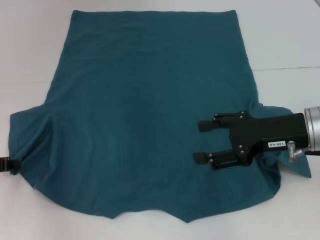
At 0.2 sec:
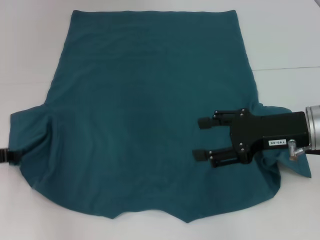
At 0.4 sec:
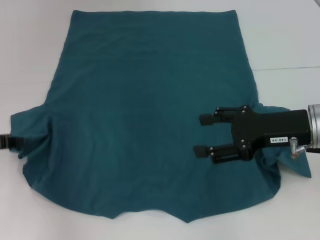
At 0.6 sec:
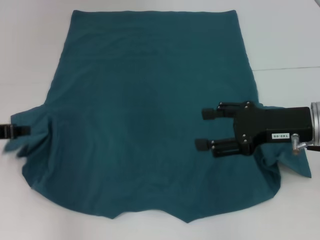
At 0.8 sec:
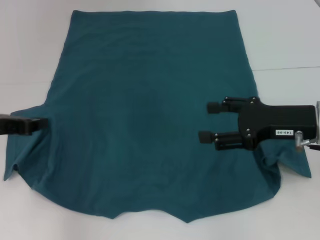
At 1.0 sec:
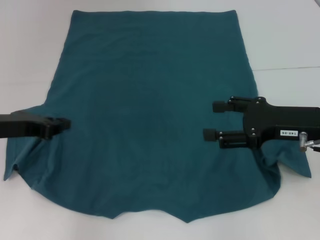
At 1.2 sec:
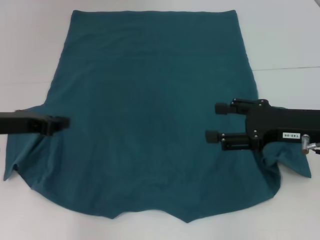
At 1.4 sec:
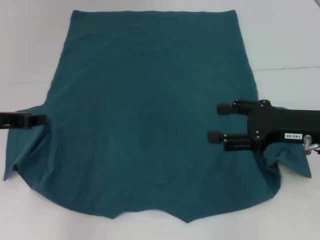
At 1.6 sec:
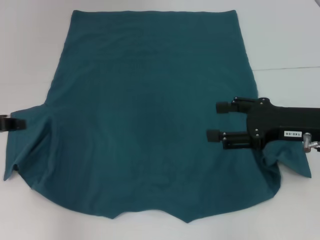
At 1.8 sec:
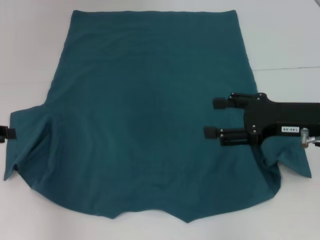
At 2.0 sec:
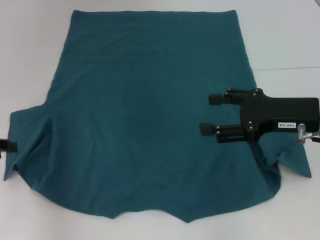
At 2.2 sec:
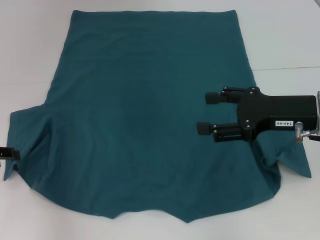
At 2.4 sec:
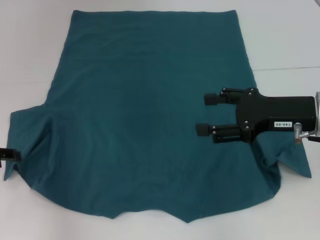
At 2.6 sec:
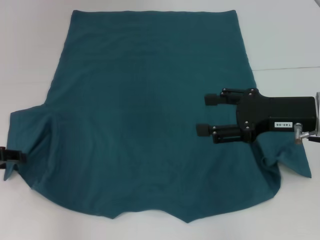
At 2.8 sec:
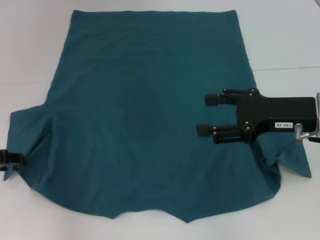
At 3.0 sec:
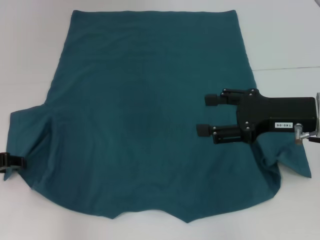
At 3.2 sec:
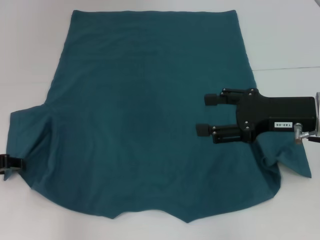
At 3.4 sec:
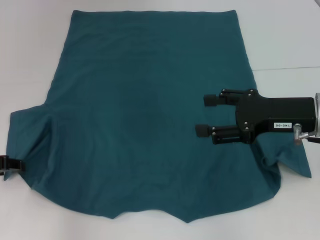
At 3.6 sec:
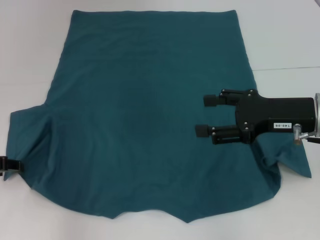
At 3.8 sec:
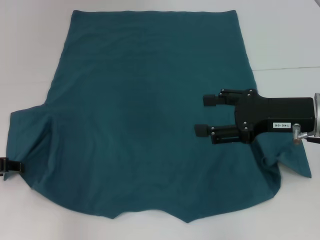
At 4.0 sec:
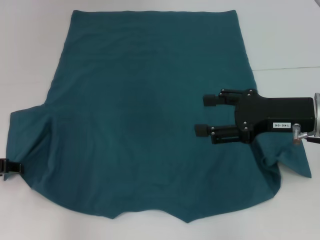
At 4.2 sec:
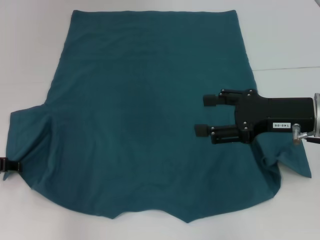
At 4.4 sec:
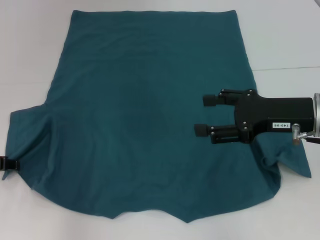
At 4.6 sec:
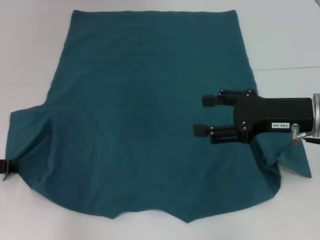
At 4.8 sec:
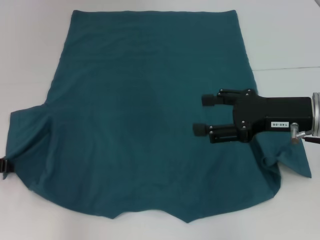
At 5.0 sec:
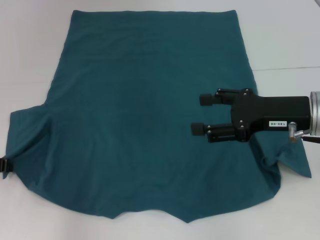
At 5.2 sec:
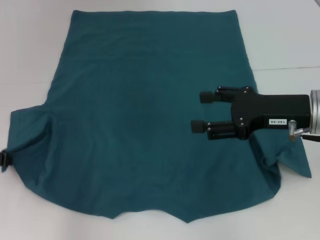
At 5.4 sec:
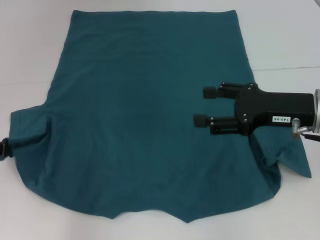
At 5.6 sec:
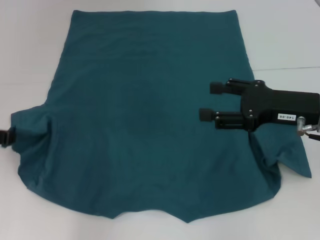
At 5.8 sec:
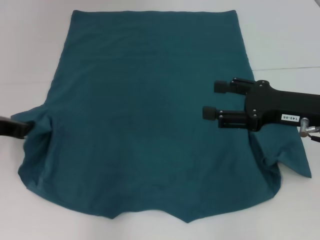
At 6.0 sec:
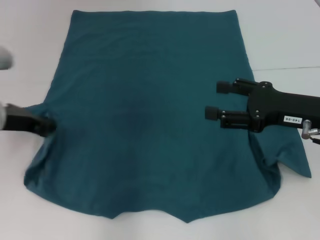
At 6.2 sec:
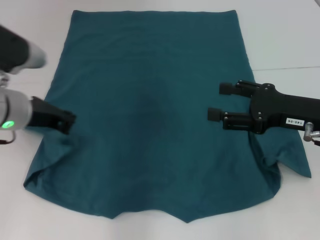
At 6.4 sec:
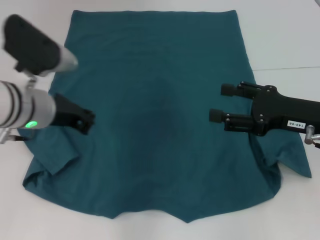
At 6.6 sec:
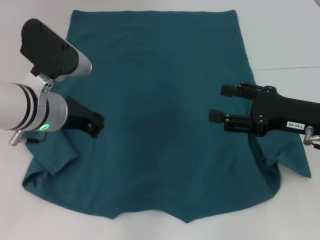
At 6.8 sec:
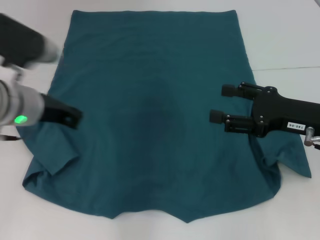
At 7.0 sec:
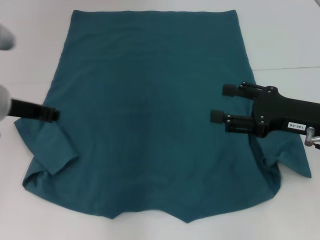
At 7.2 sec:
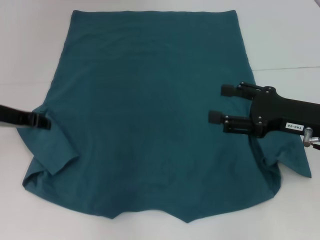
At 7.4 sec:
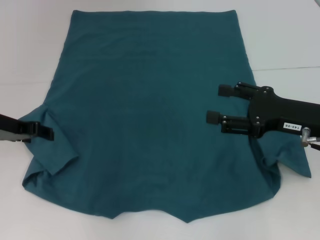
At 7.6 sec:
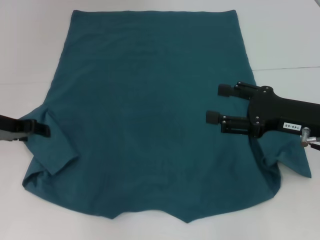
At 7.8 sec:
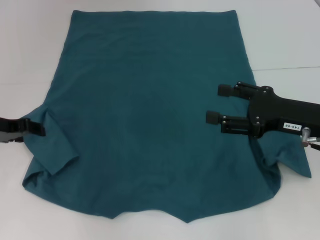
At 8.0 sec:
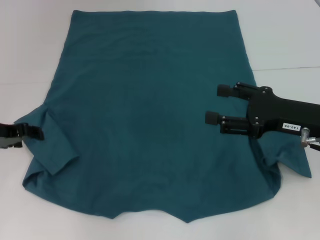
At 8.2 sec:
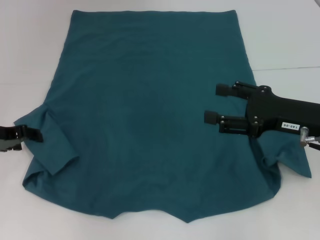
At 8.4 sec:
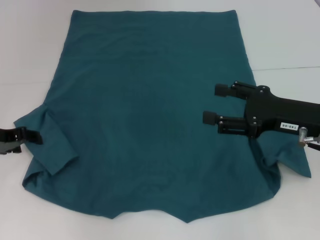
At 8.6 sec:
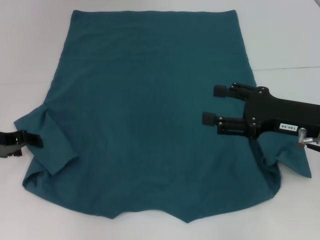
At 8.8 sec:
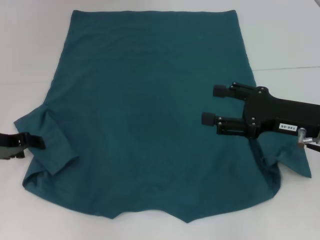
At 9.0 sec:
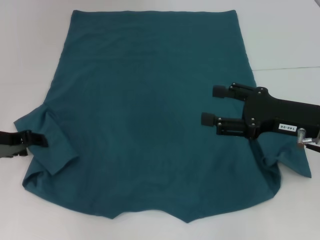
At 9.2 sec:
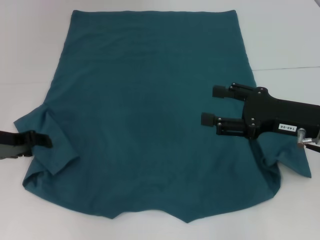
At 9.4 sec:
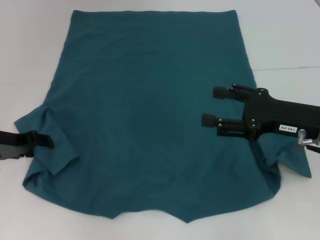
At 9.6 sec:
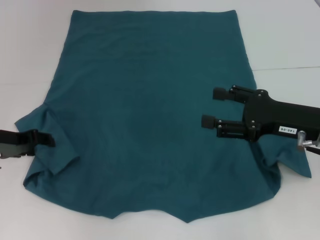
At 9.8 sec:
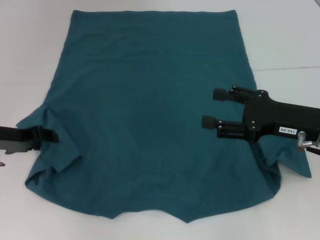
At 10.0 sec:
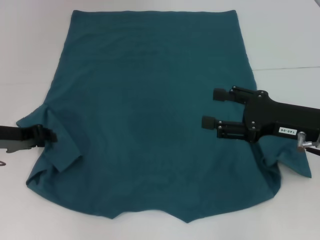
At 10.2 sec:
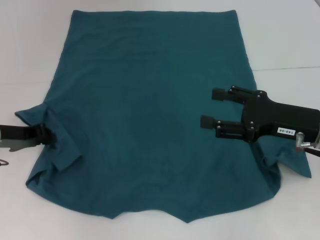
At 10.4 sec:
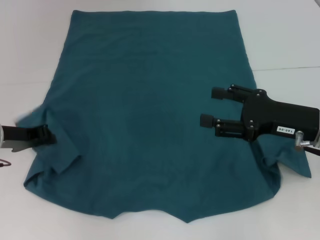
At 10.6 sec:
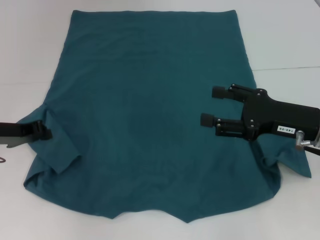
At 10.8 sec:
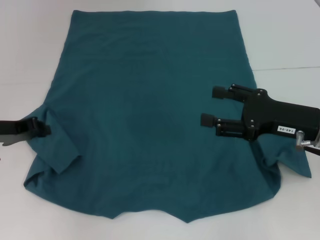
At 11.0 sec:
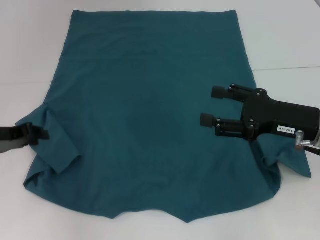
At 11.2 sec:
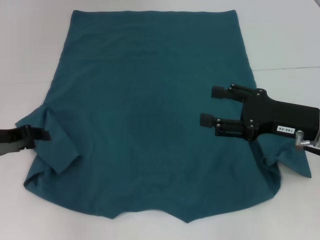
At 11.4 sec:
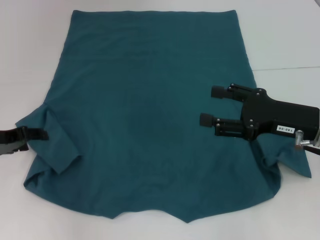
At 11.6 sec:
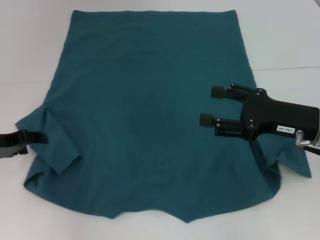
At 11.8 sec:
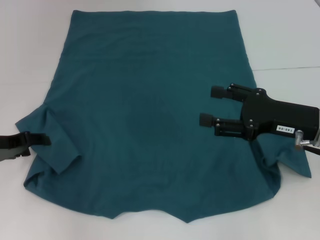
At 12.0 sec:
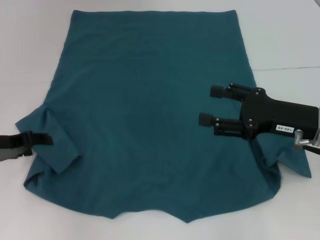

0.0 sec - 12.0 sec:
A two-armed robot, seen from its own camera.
0.0 sec - 1.6 sec: The left gripper heads upward, covering about 5 cm.
1.6 sec - 3.0 sec: The left gripper is displaced downward by about 5 cm, and opens its fingers.
3.0 sec - 4.4 sec: The grippers move only a little.
4.4 sec - 6.0 sec: The left gripper moves to the right and upward, roughly 10 cm, and closes its fingers.
6.0 sec - 7.6 sec: The left gripper reaches roughly 10 cm to the right, then returns, and opens.
7.6 sec - 9.0 sec: The grippers stay close to where they were, moving slightly.
9.0 sec - 10.4 sec: The left gripper closes its fingers.
10.4 sec - 12.0 sec: The left gripper opens.

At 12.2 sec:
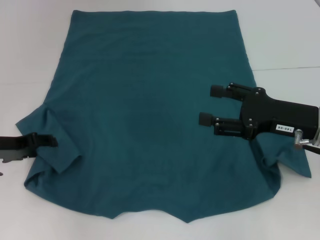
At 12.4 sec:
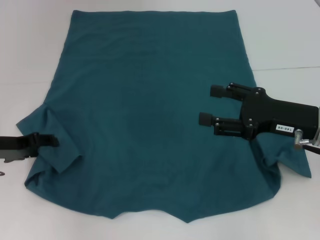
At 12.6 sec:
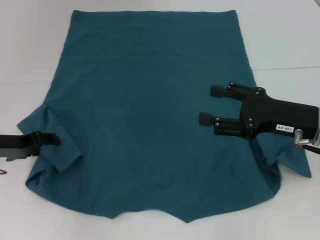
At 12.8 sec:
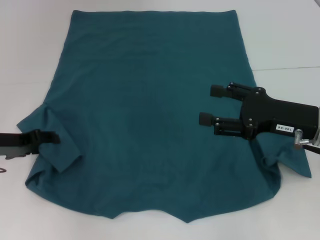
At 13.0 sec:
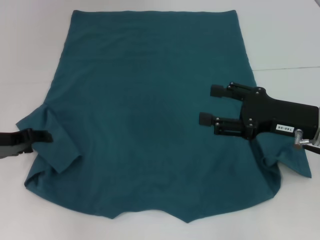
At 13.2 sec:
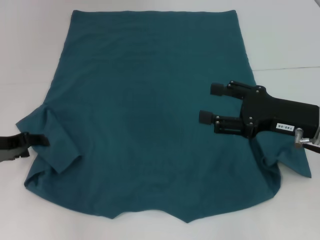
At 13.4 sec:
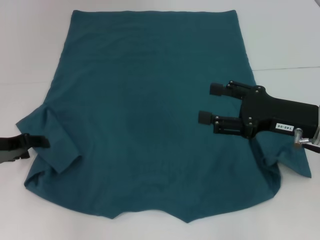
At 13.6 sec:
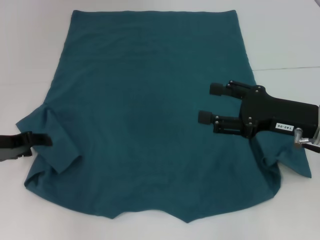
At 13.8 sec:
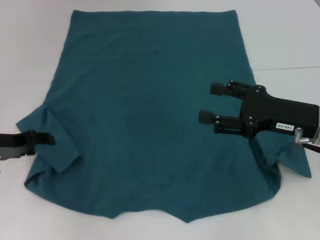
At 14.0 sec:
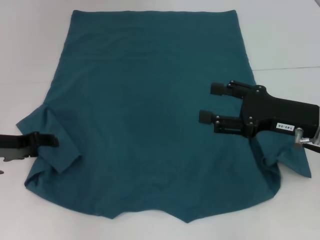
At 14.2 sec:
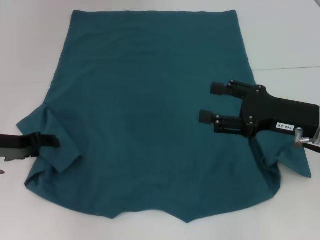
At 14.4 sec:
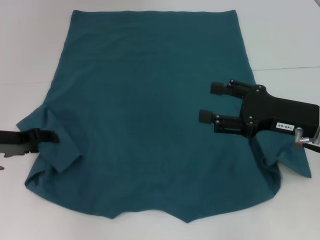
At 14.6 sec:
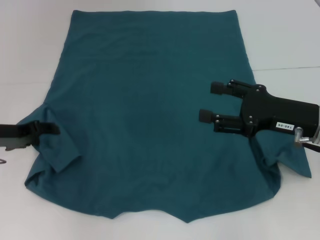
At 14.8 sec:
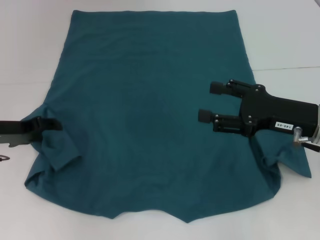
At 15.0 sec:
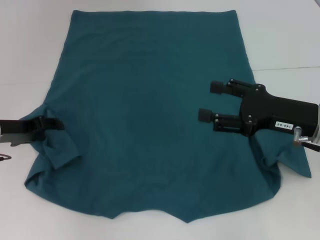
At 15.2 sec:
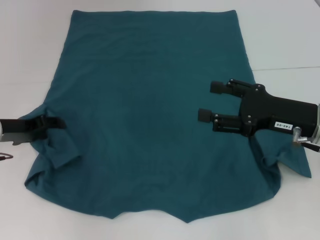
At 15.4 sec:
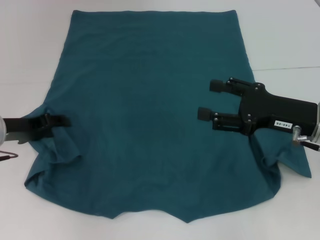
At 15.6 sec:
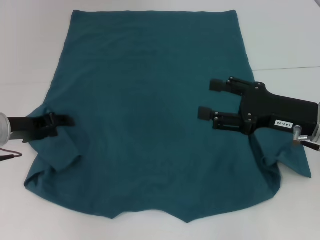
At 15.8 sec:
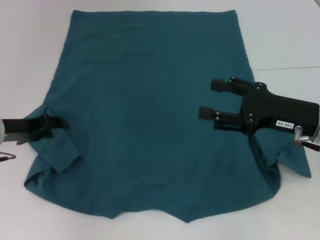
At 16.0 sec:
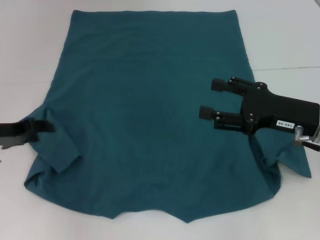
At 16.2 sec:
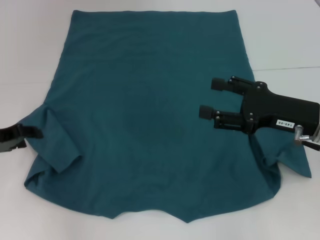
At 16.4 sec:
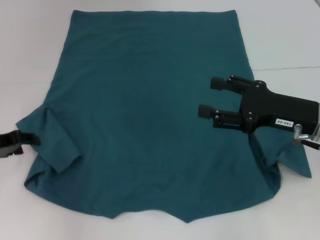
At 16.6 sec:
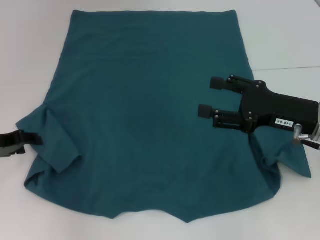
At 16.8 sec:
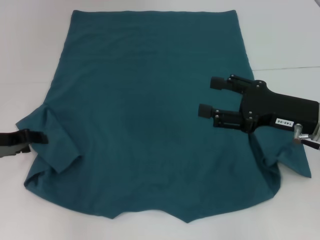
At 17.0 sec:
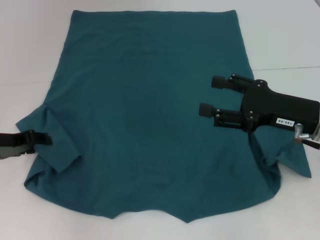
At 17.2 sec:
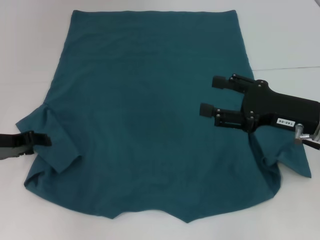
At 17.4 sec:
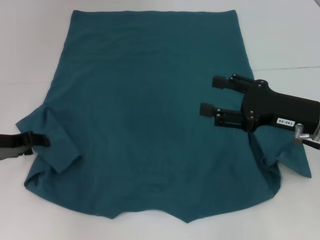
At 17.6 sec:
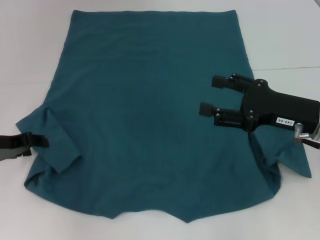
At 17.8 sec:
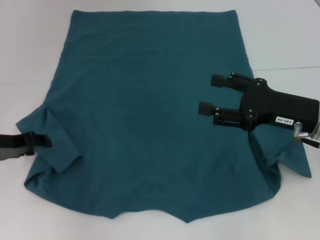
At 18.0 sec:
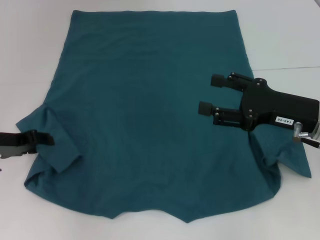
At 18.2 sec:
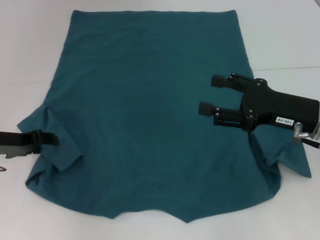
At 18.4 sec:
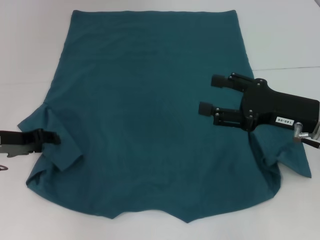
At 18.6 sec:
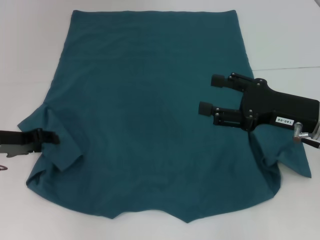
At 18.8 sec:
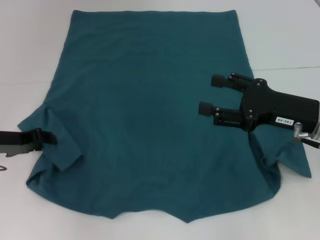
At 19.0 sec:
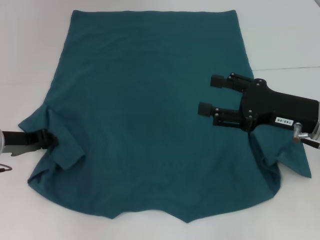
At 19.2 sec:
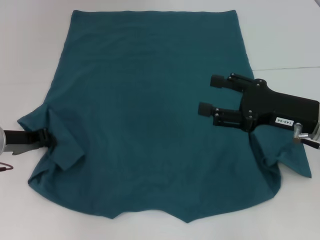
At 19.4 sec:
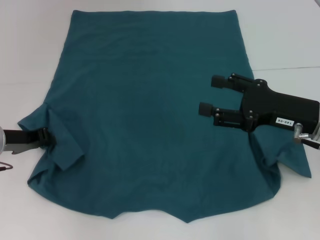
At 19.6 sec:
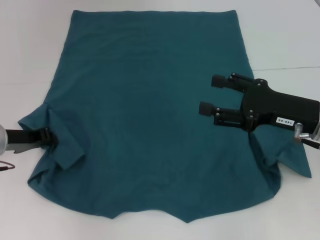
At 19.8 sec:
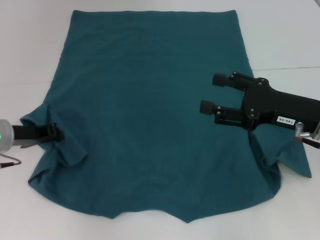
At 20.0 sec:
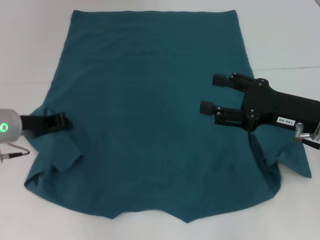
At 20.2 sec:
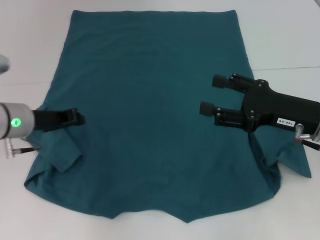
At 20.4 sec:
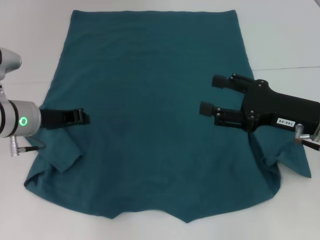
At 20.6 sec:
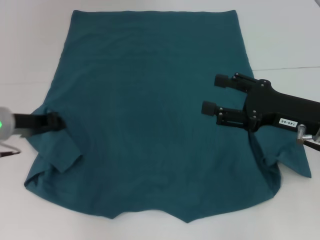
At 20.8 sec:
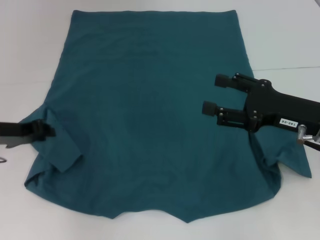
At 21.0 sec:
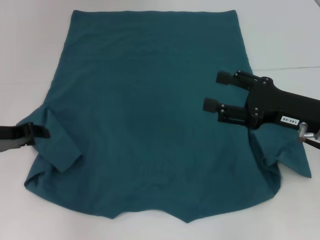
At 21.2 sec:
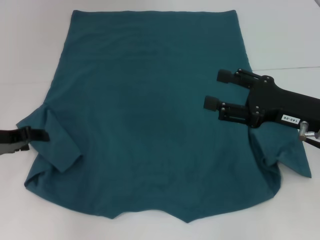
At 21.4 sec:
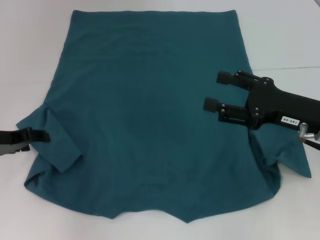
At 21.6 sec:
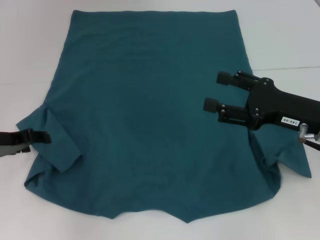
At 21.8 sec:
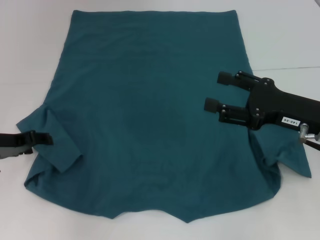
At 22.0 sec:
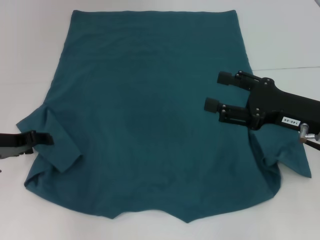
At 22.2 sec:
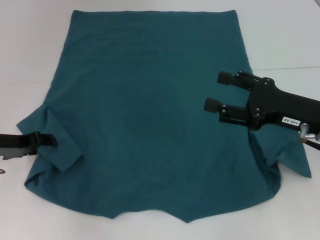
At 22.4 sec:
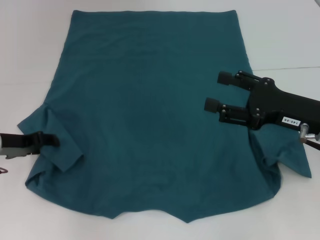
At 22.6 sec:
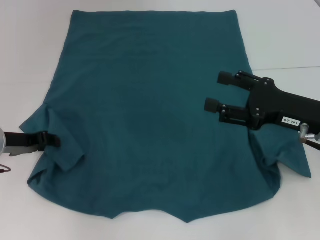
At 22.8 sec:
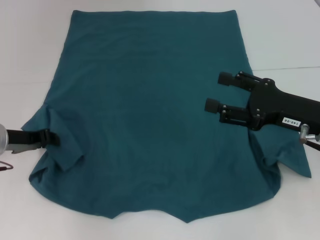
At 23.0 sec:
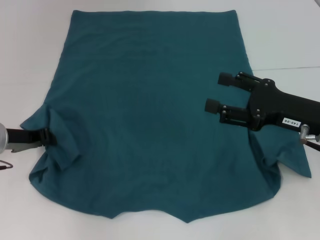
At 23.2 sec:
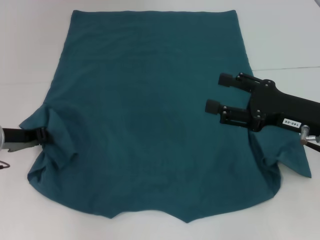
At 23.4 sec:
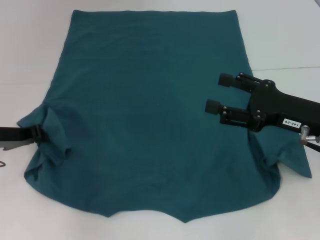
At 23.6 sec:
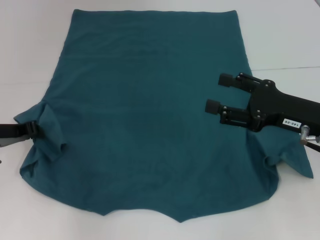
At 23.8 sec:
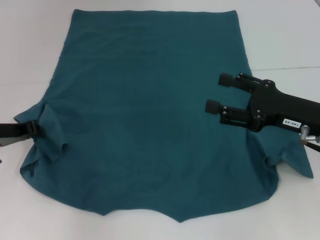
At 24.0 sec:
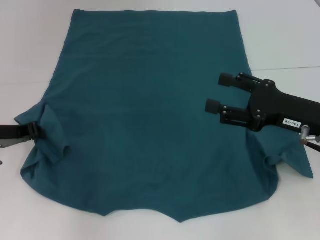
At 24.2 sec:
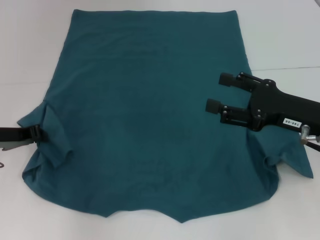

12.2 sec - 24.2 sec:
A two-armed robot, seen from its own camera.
12.2 sec - 13.8 sec: Both grippers stay put.
13.8 sec - 18.2 sec: There are only small adjustments of the grippers.
18.2 sec - 19.8 sec: The left gripper closes its fingers.
19.8 sec - 21.2 sec: The left gripper opens up.
21.2 sec - 22.6 sec: The grippers stay close to where they were, moving slightly.
22.6 sec - 24.2 sec: The left gripper closes its fingers.
